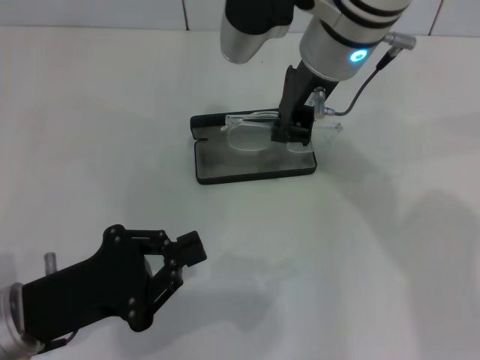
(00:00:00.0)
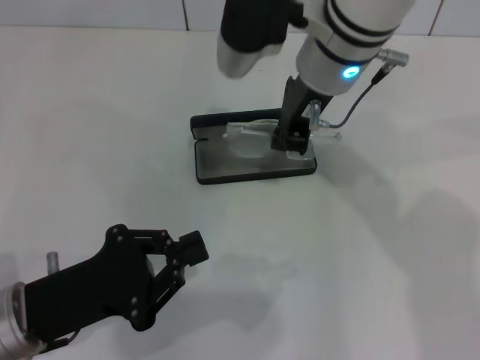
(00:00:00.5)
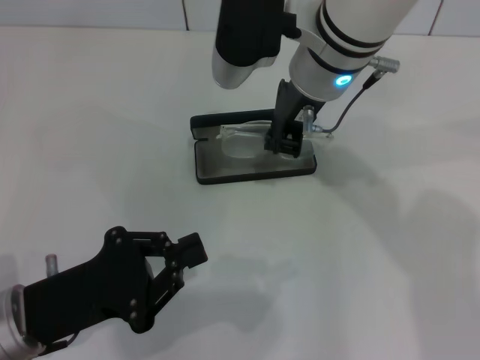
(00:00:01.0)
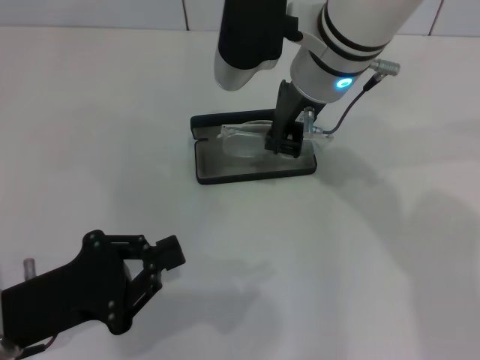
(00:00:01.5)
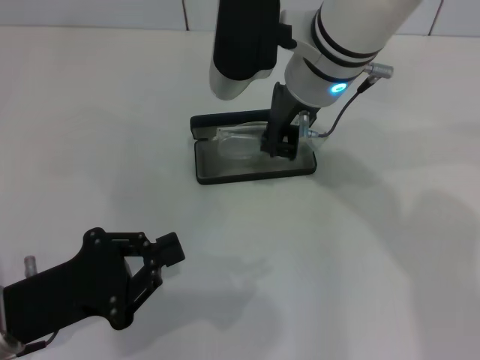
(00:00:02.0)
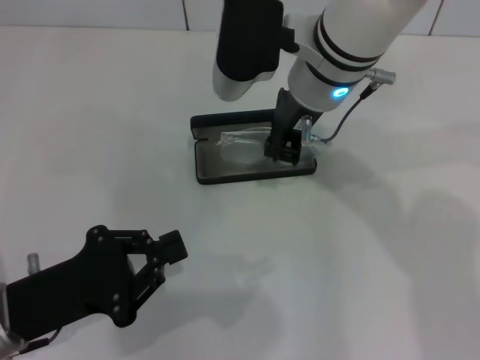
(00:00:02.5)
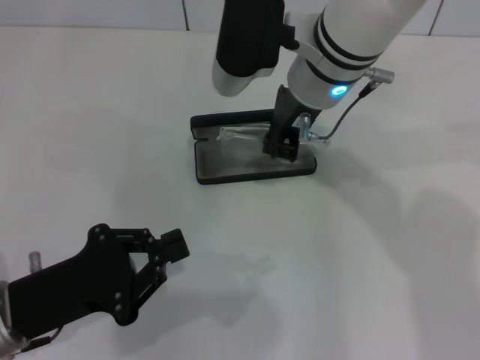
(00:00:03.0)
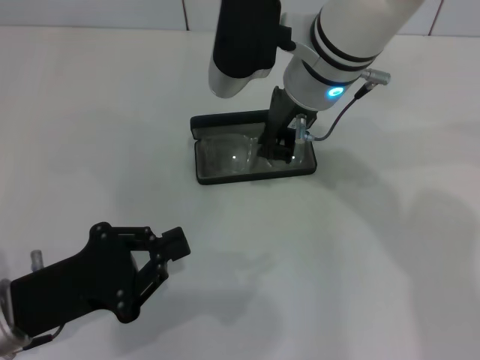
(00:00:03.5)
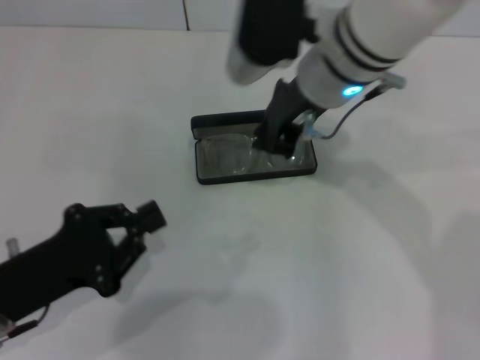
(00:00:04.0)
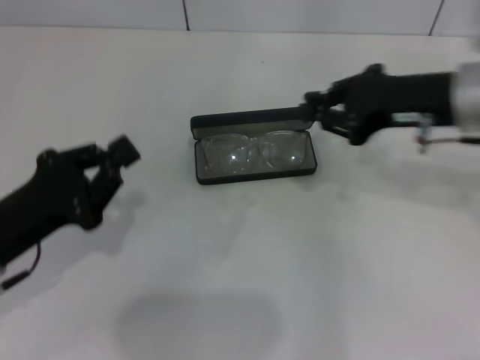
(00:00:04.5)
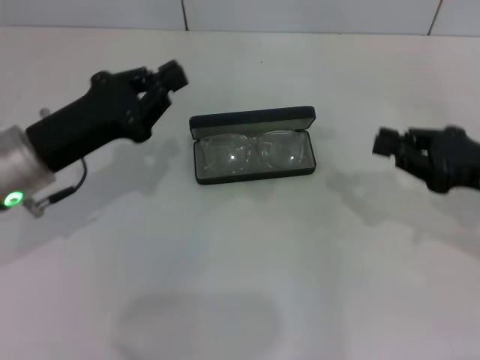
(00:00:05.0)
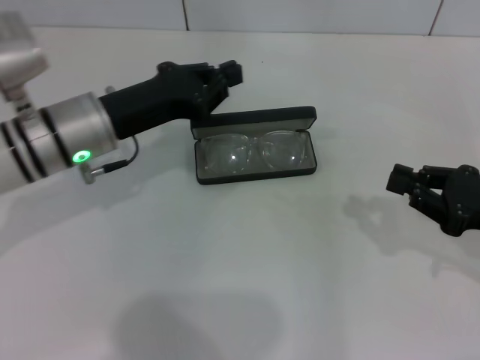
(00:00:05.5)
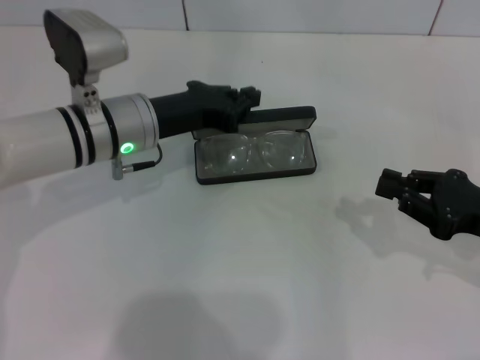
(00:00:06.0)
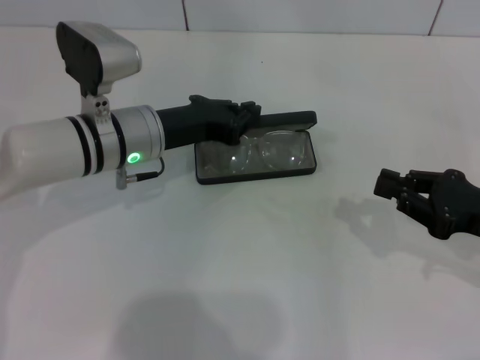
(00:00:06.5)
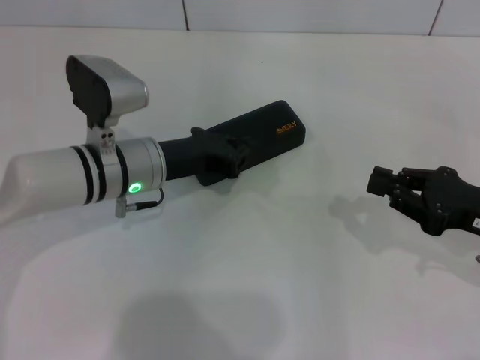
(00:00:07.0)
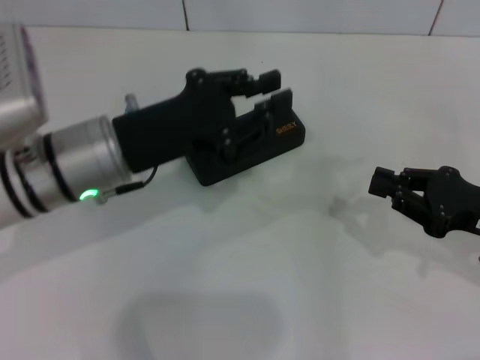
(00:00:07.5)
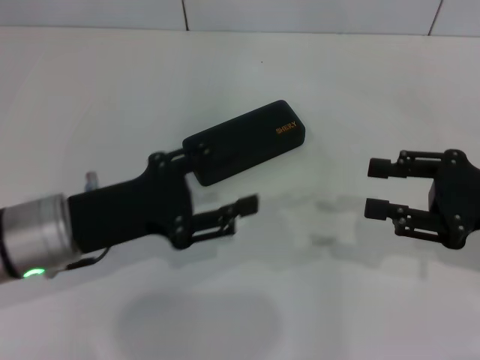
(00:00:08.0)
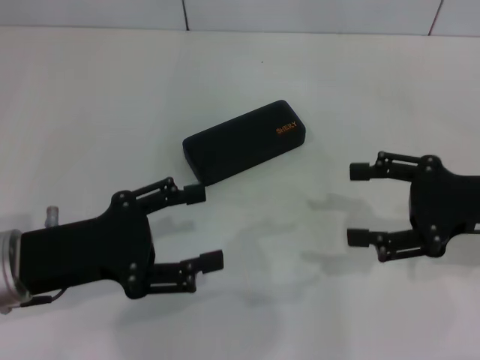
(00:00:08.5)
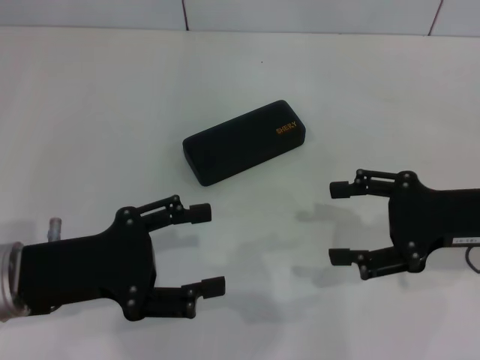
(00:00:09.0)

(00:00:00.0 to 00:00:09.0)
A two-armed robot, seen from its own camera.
Step, 00:00:00.0 - 00:00:03.5: Put the glasses into the case with your right hand.
Step, 00:00:04.0 - 00:00:06.5: Close the glasses case with your left hand.
00:00:00.0 - 00:00:02.0: There are only small adjustments of the grippers.
00:00:02.0 - 00:00:04.5: The right gripper is displaced to the right by approximately 15 cm.
00:00:04.5 - 00:00:07.0: The left gripper travels forward and to the right by some 20 cm. The right gripper goes some 15 cm downward, to the right and backward.
00:00:07.0 - 00:00:09.0: The left gripper goes approximately 15 cm backward and to the left, and opens its fingers, while the right gripper ends up roughly 5 cm from where it was, and opens its fingers.

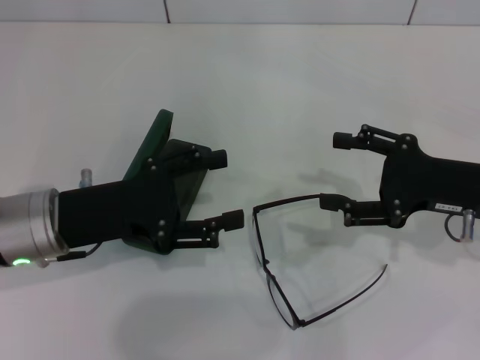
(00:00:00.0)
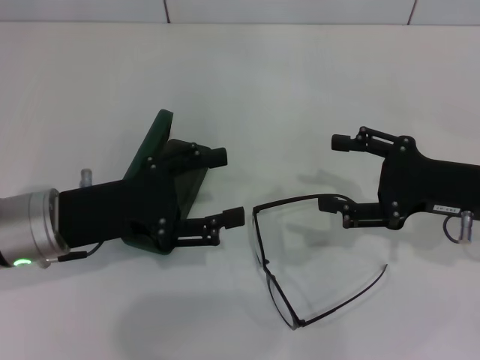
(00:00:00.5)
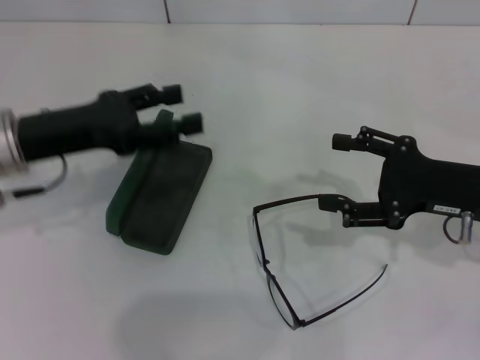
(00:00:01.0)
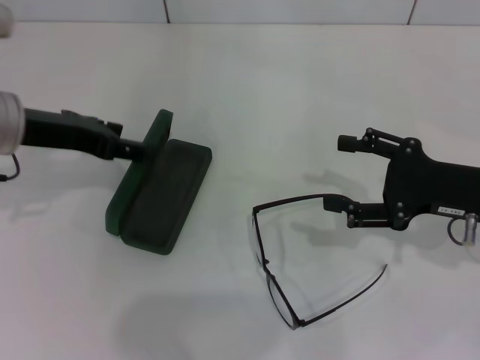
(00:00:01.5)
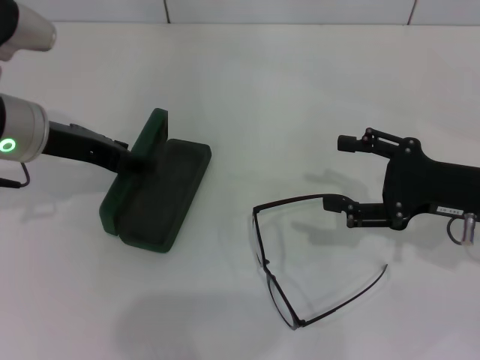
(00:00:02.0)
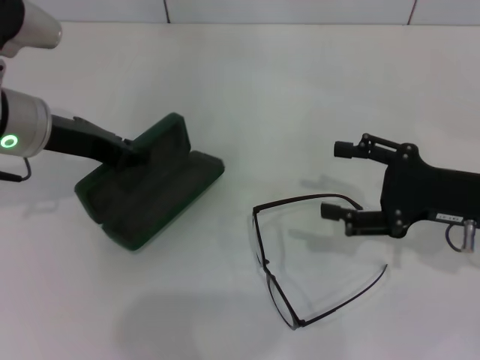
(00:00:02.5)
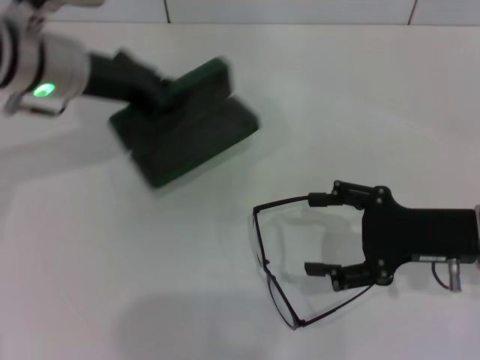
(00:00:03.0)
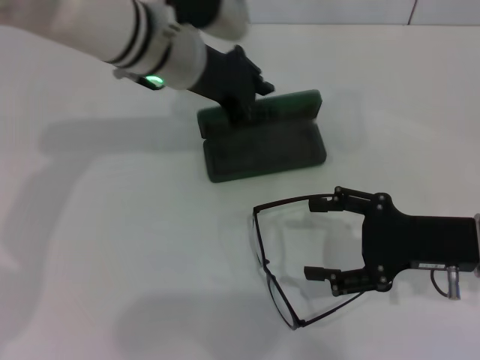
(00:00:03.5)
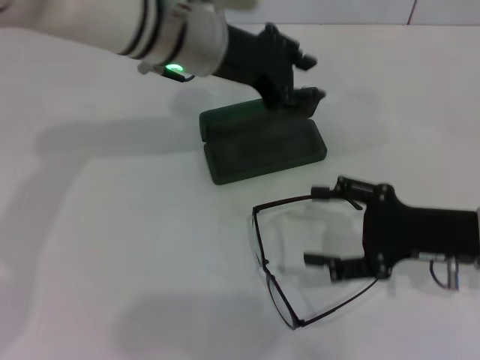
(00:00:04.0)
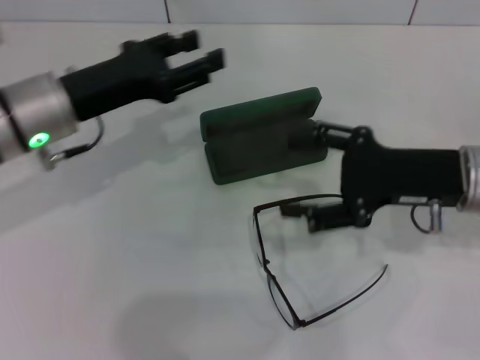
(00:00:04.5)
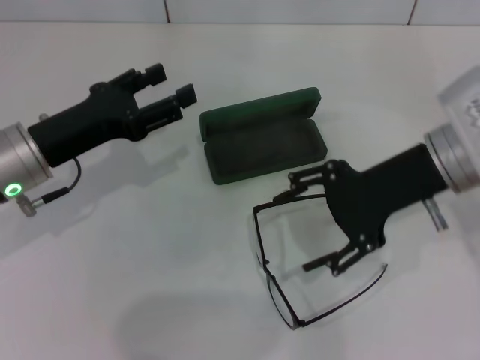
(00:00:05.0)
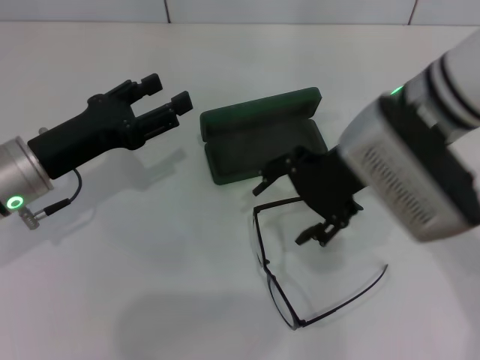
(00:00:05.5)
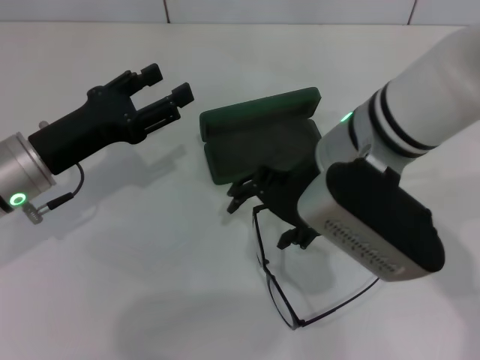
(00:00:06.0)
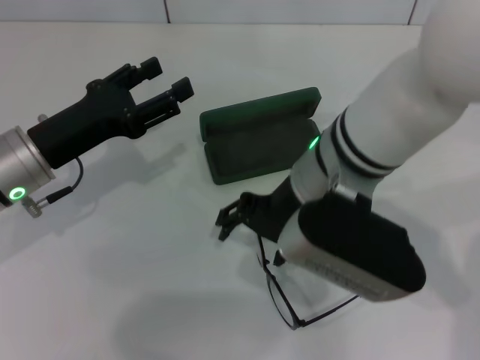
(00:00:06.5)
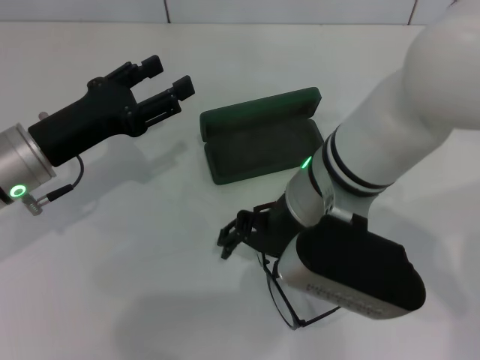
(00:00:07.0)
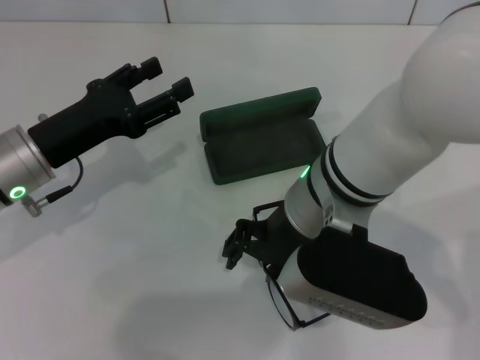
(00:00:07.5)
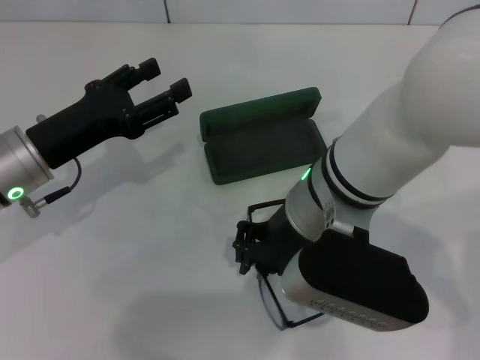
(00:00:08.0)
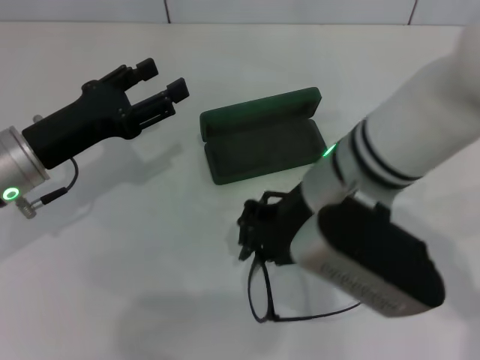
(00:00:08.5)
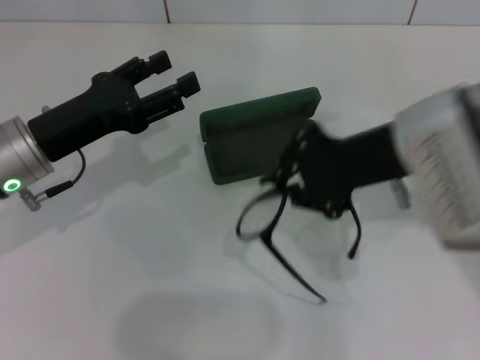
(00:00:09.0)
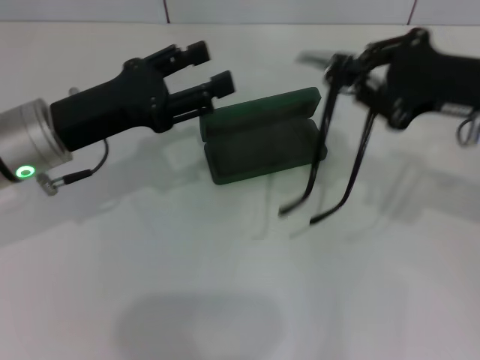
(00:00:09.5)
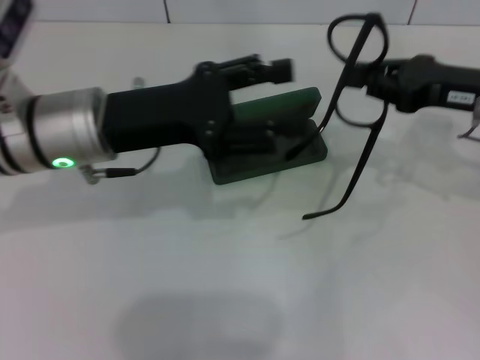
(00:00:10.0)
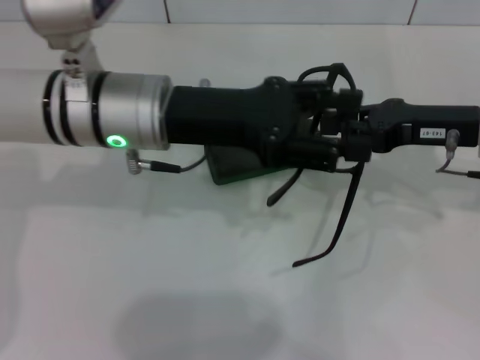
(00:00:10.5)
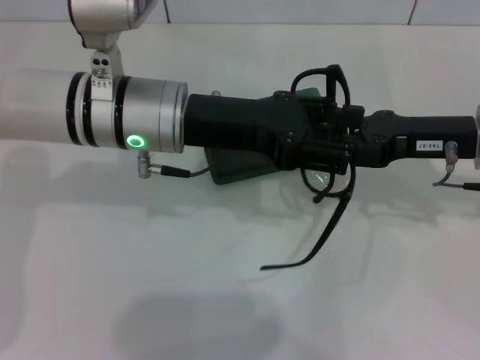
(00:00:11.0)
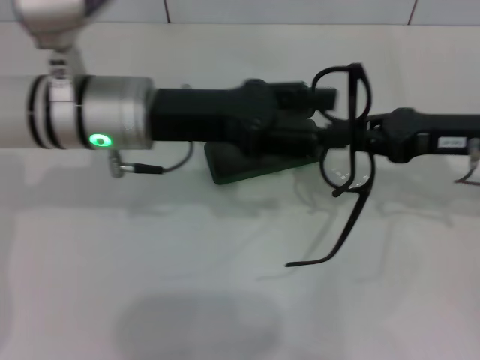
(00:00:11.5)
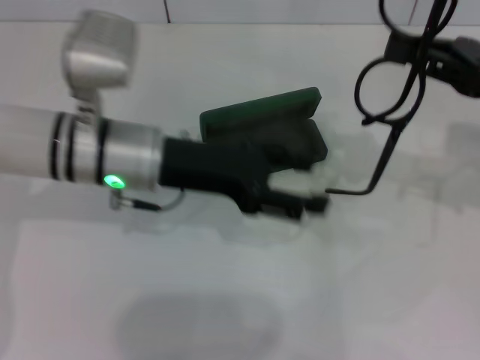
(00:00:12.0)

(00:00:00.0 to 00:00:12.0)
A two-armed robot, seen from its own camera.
Step, 00:00:00.0 - 00:00:02.0: Grab the glasses case with your left hand.
Step, 00:00:02.5 - 00:00:03.5: Place the glasses case in the center of the table with your left hand.
Step, 00:00:04.0 - 00:00:08.0: Grab the eyeglass frame with your right hand.
00:00:00.0 - 00:00:02.0: The left gripper is displaced forward and upward by roughly 10 cm.
00:00:02.0 - 00:00:04.0: The left gripper heads to the right and forward, covering approximately 15 cm, and closes up.
00:00:04.0 - 00:00:06.0: The right gripper heads to the left and upward, covering roughly 20 cm. Meanwhile the left gripper shifts about 20 cm to the left, backward and downward, and opens its fingers.
00:00:06.0 - 00:00:08.0: The right gripper closes up.
00:00:08.0 - 00:00:10.0: The right gripper goes approximately 20 cm to the right, and closes up. Meanwhile the left gripper is displaced to the right and upward by roughly 10 cm.

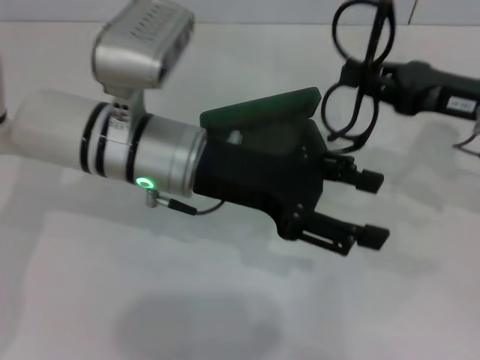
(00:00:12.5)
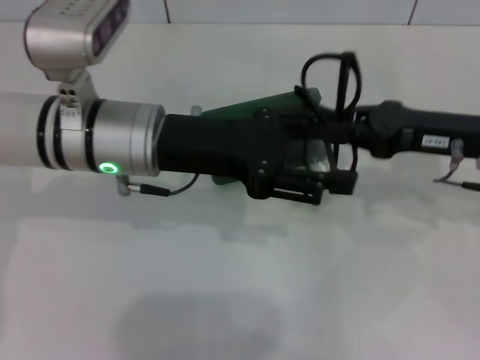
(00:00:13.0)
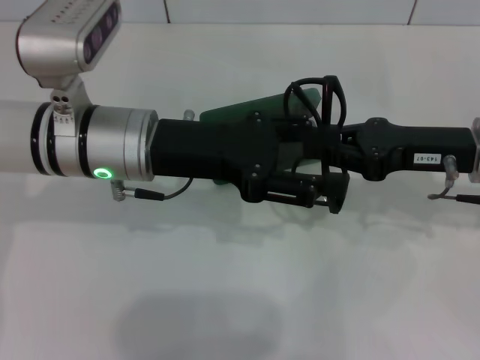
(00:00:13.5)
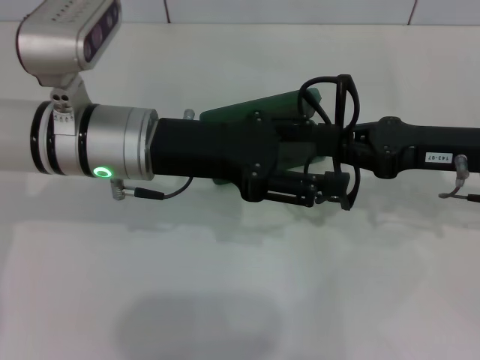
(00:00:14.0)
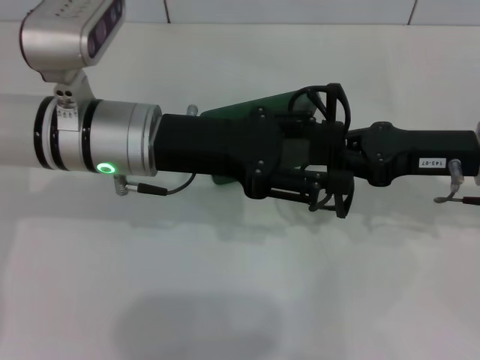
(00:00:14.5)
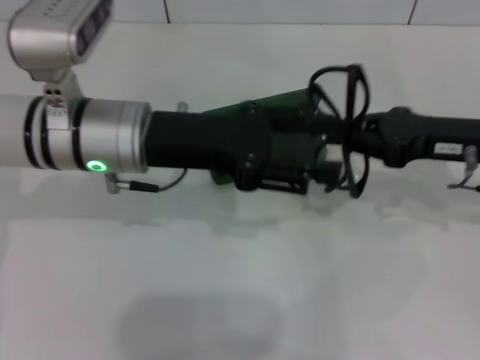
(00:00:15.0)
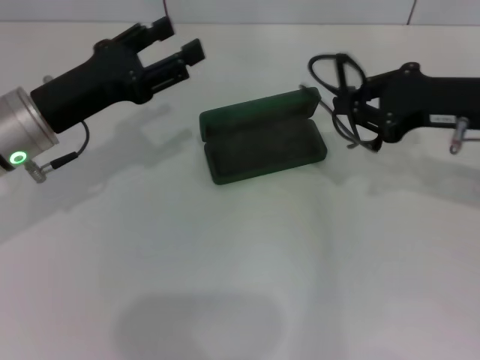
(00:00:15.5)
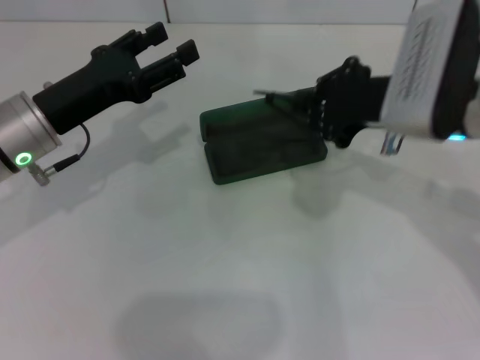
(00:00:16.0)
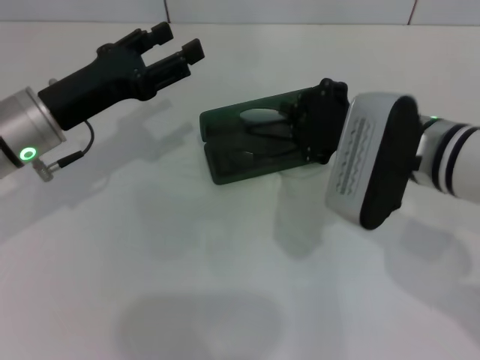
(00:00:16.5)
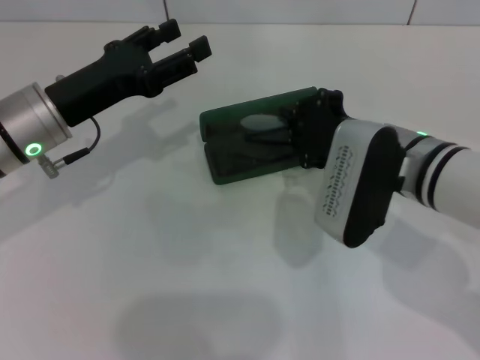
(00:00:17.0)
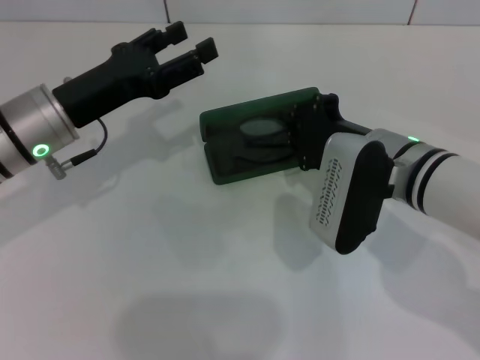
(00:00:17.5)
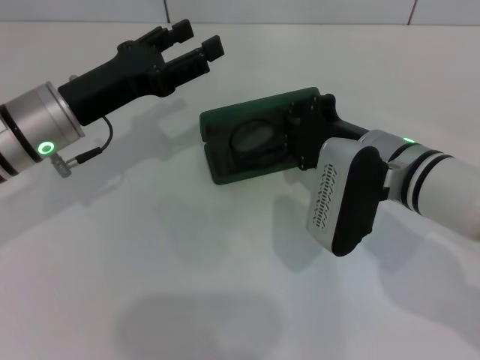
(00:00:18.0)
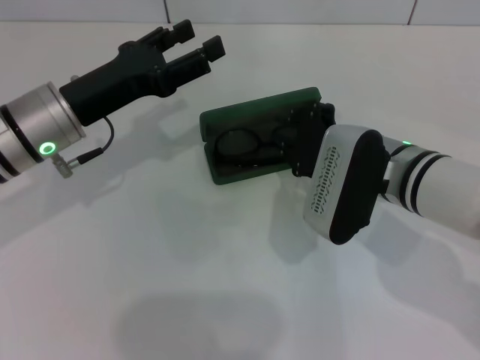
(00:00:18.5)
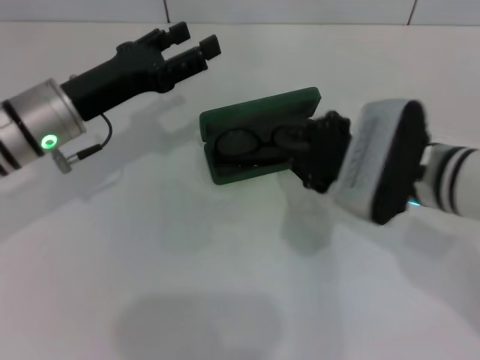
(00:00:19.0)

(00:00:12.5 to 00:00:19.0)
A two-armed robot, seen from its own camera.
Step, 00:00:13.5 - 00:00:18.5: Put the glasses into the case with your right hand.
00:00:14.5 - 00:00:17.0: Both grippers move to the left, approximately 10 cm.
00:00:17.0 - 00:00:19.0: The grippers stay close to where they were, moving slightly.
